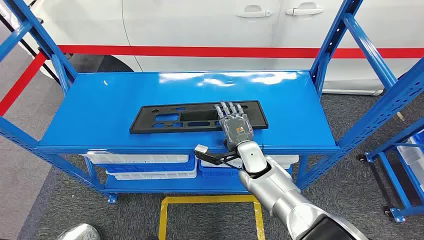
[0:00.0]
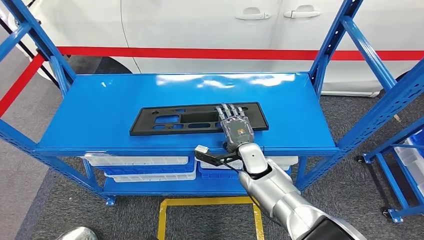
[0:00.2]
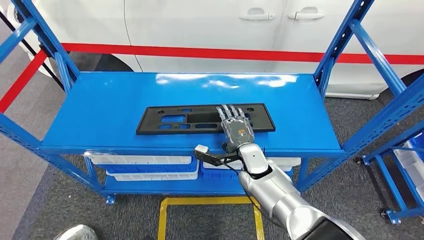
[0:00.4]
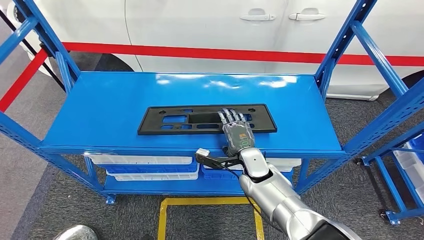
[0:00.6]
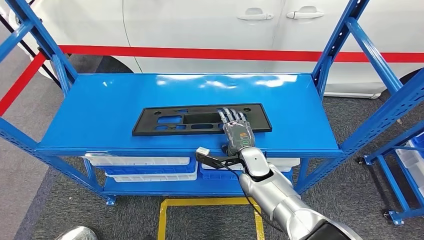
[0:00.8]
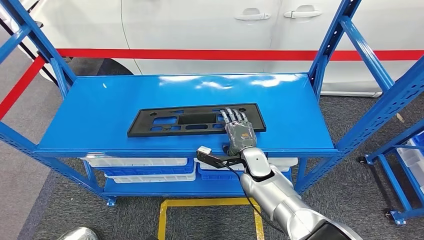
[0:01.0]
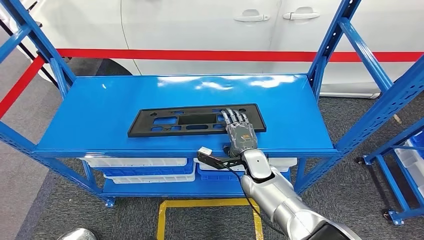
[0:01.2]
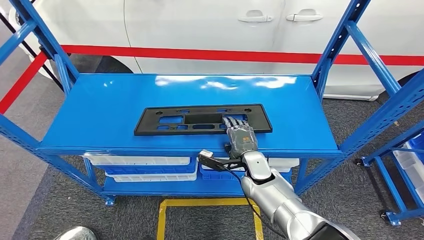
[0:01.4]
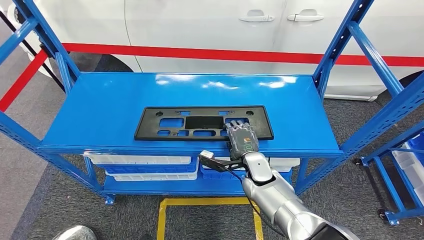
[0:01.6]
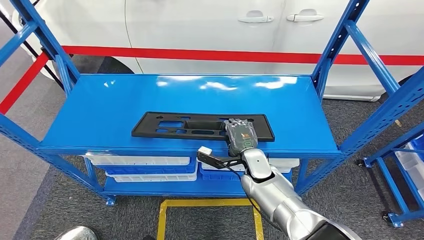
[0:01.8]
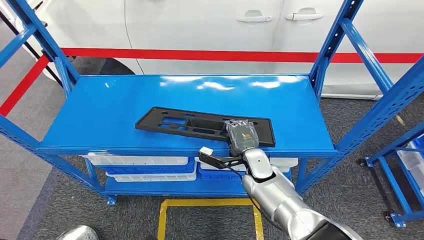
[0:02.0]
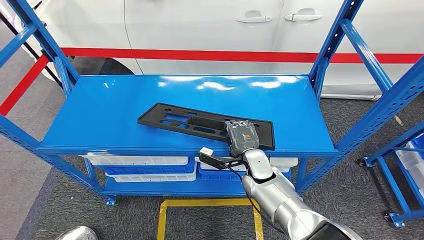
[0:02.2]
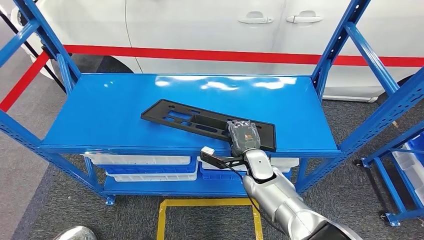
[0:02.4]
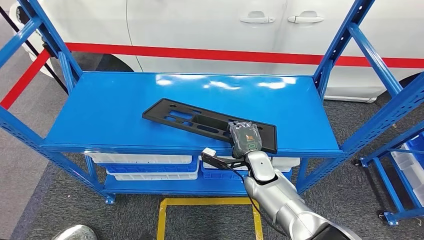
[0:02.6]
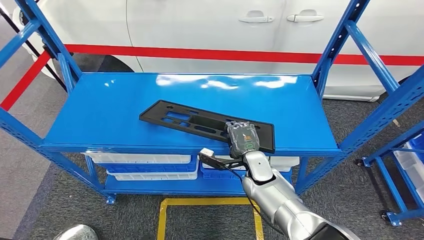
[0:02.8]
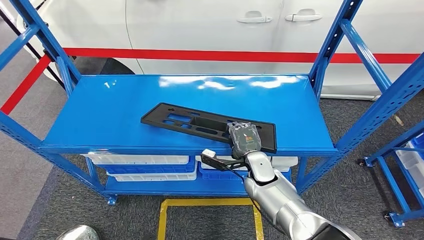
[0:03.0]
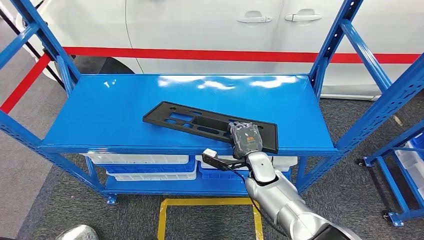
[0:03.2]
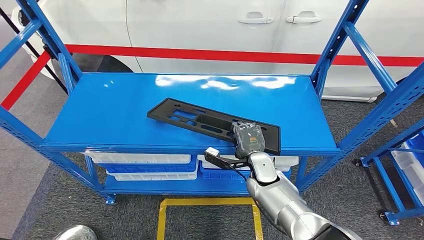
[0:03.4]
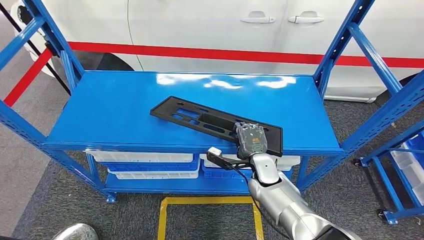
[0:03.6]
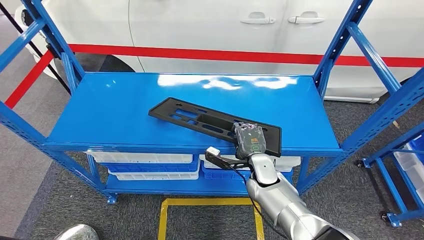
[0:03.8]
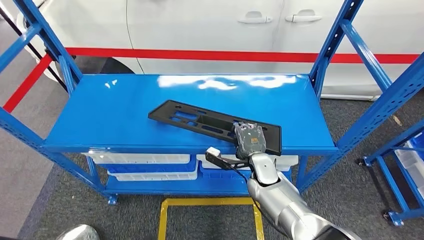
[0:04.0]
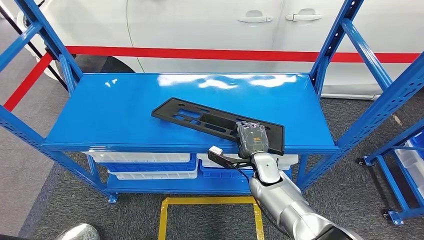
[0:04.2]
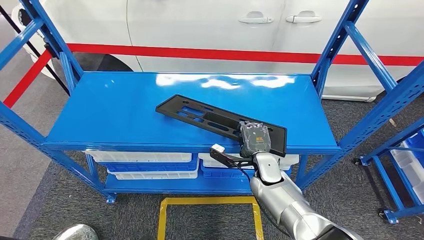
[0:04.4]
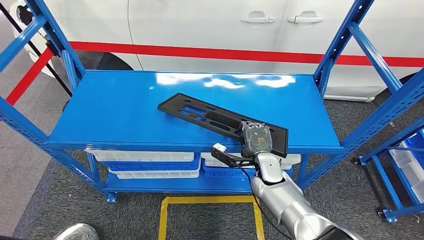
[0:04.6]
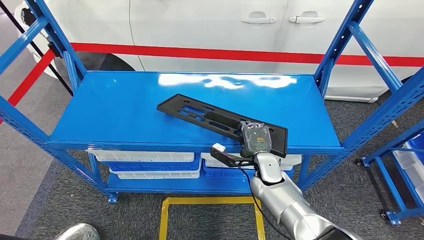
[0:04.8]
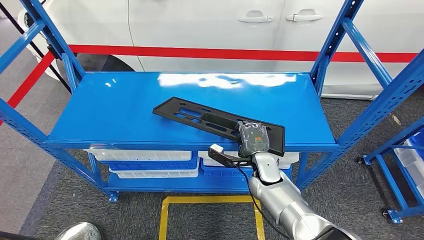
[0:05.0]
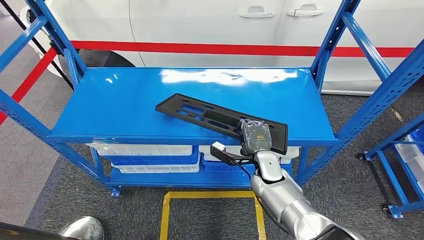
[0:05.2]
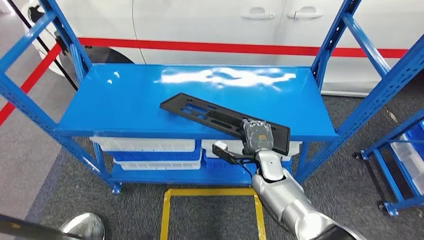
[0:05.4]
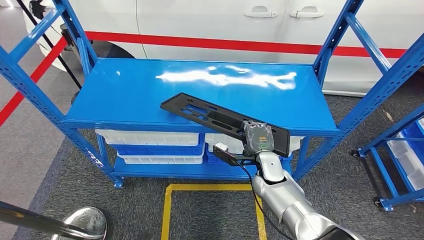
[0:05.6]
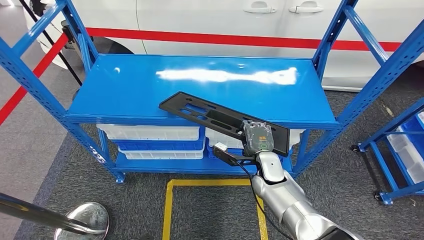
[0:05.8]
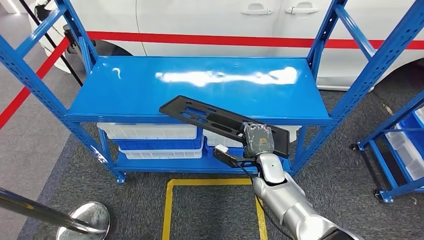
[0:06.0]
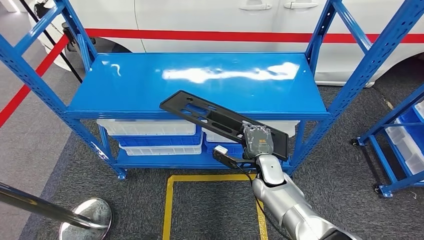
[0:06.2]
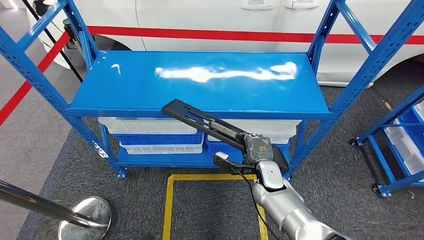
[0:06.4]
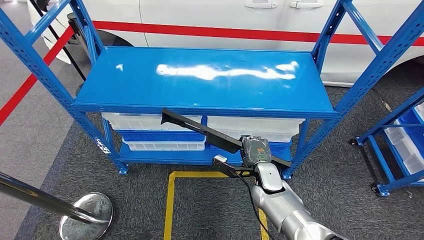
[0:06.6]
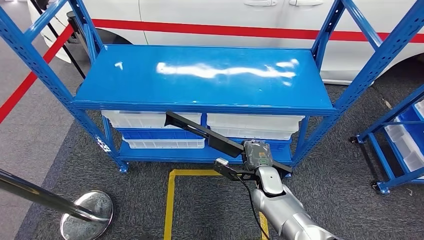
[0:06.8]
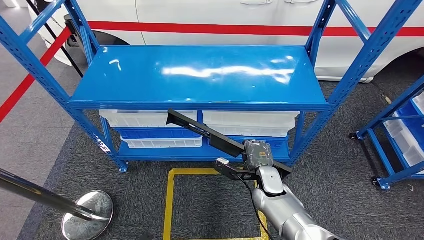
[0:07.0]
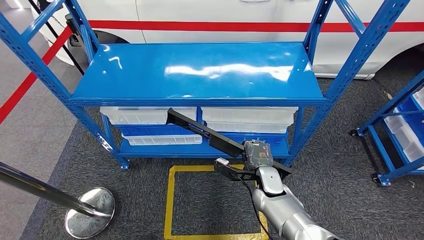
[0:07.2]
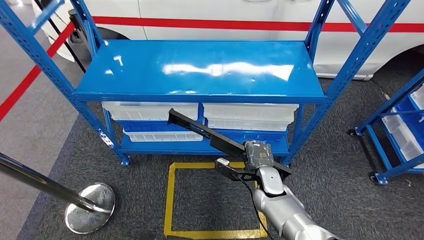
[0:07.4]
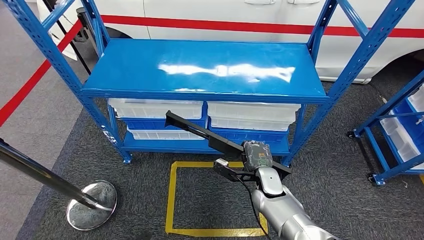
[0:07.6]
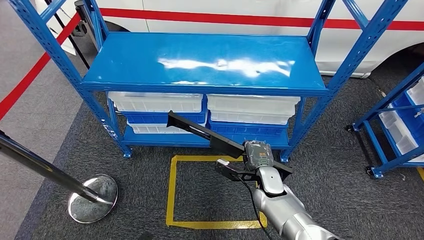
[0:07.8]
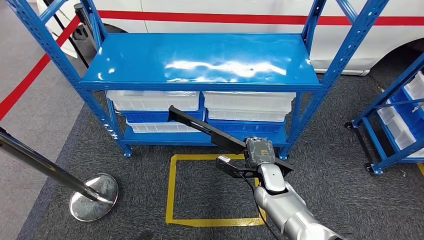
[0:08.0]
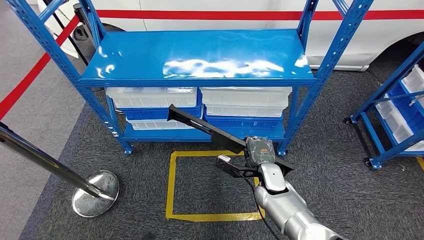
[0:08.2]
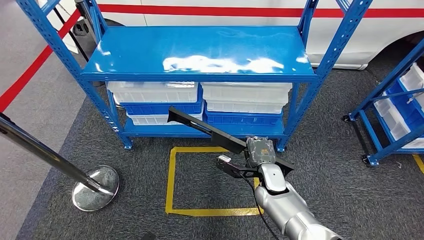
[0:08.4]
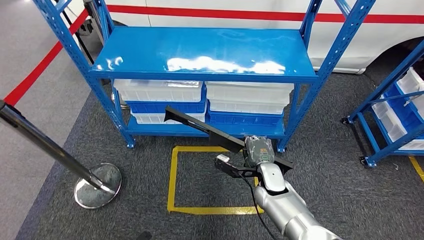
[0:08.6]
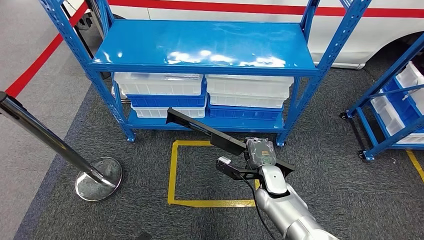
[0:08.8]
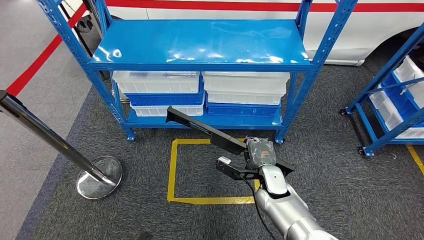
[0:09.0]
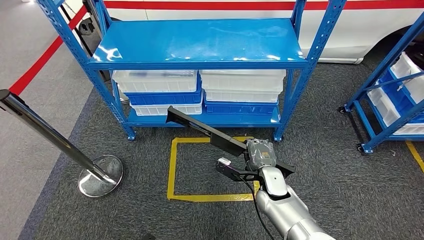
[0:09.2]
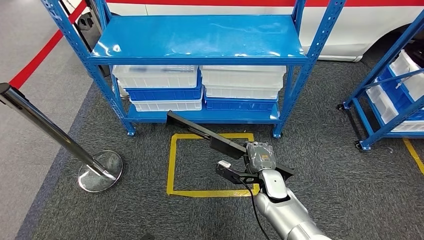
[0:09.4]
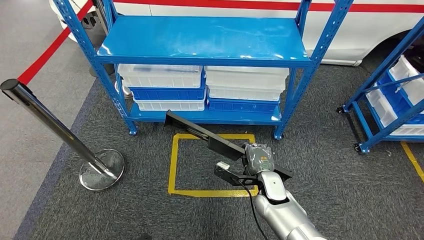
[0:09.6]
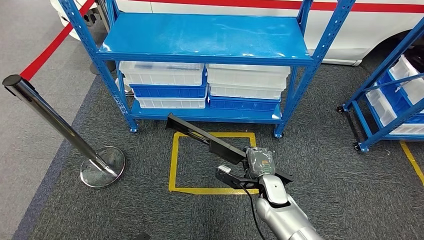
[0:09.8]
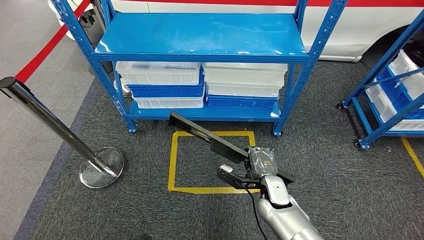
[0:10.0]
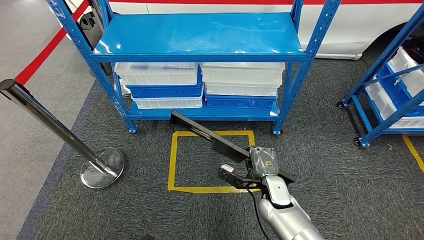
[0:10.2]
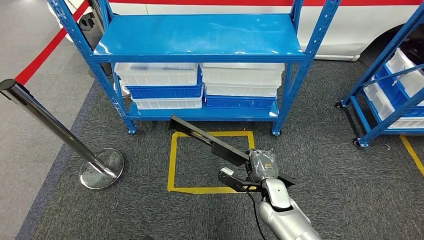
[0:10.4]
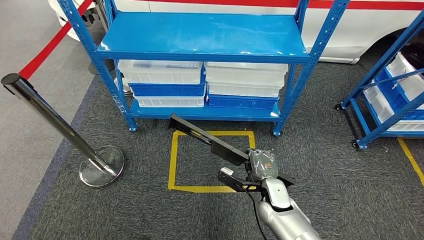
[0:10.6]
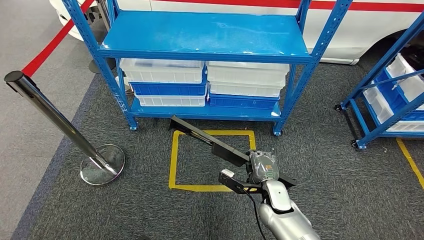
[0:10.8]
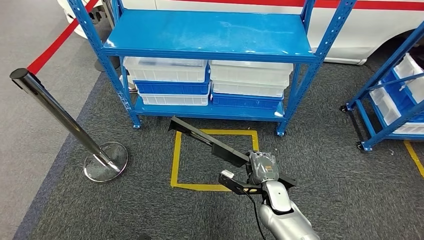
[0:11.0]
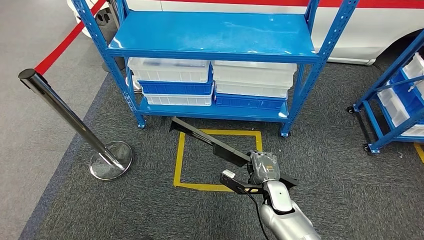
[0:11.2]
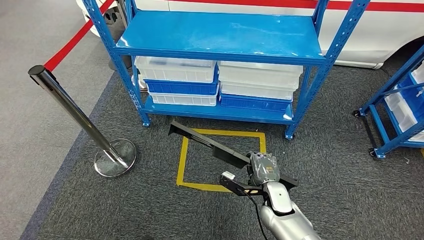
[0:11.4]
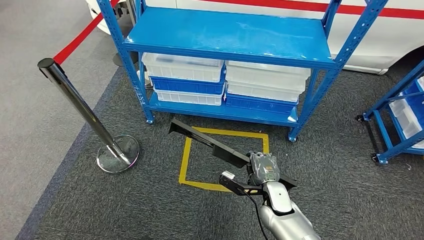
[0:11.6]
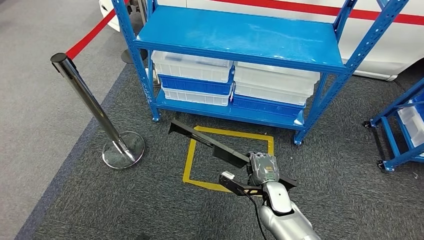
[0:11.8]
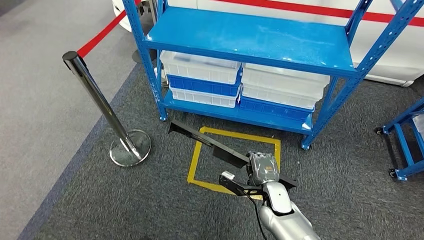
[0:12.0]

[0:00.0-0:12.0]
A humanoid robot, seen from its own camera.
Step, 0:00.0 to 0:06.8: Pick up the large material from the shelf.

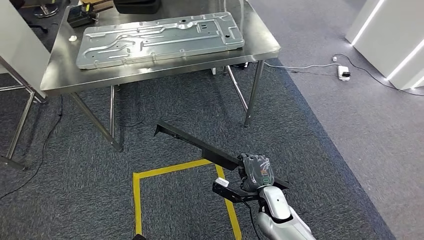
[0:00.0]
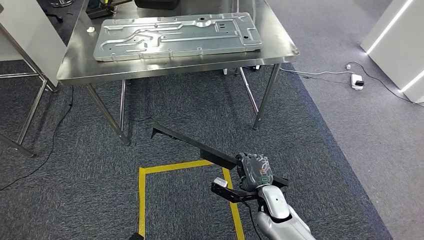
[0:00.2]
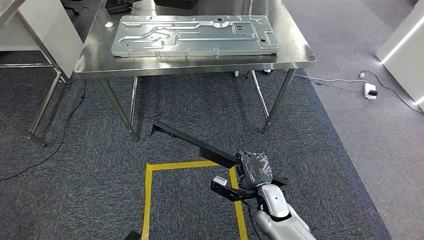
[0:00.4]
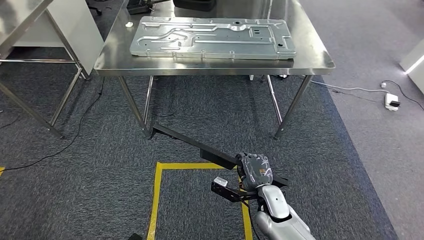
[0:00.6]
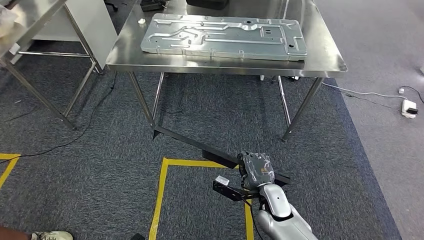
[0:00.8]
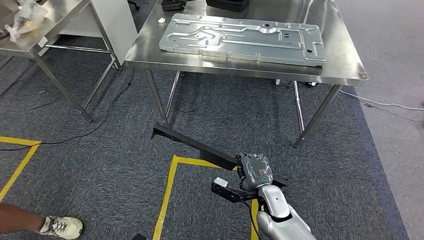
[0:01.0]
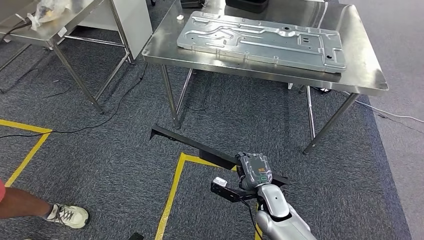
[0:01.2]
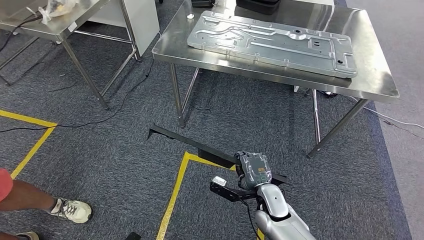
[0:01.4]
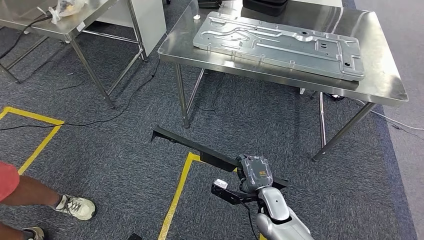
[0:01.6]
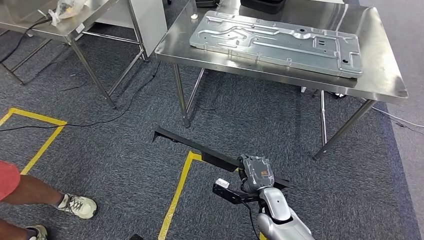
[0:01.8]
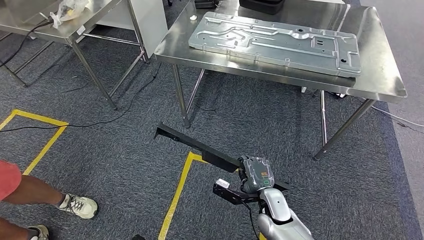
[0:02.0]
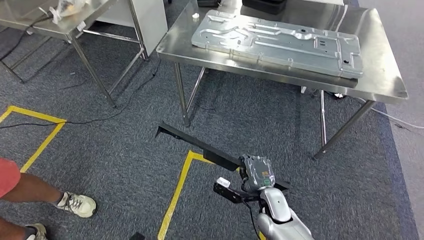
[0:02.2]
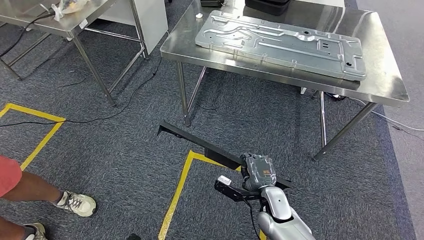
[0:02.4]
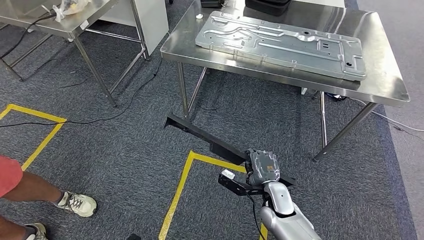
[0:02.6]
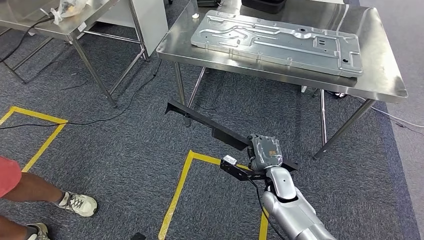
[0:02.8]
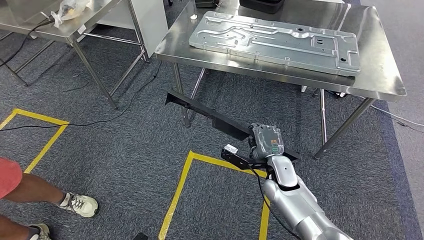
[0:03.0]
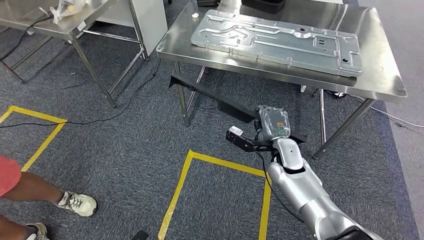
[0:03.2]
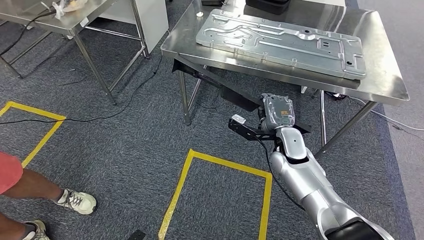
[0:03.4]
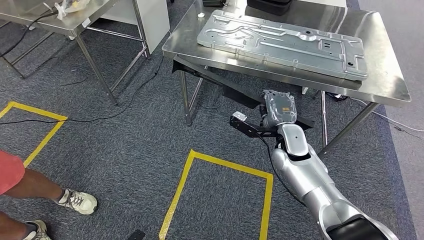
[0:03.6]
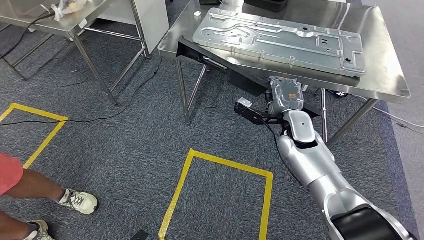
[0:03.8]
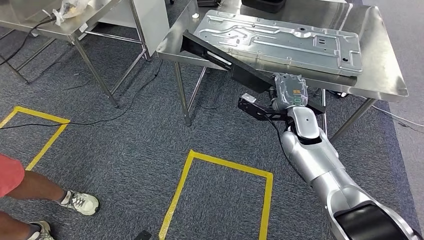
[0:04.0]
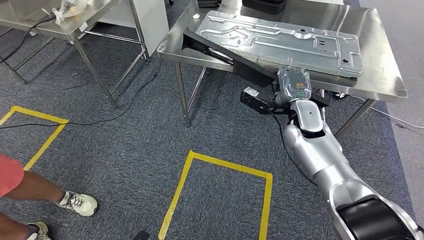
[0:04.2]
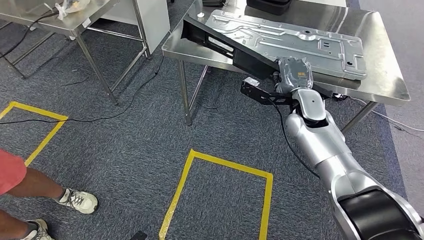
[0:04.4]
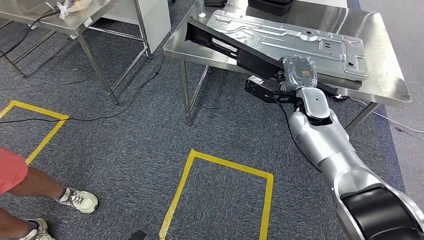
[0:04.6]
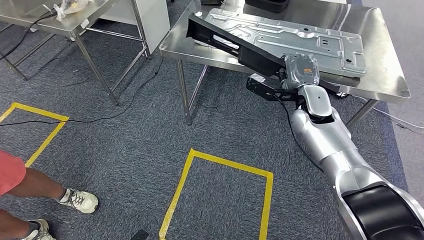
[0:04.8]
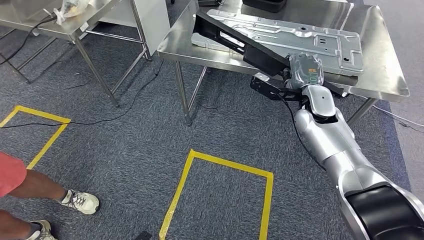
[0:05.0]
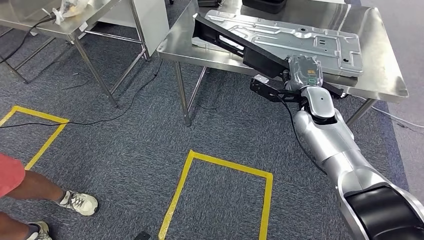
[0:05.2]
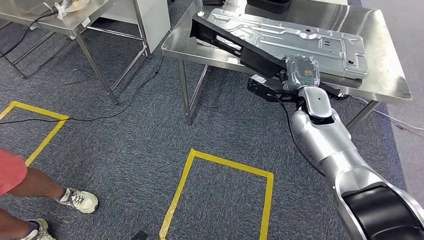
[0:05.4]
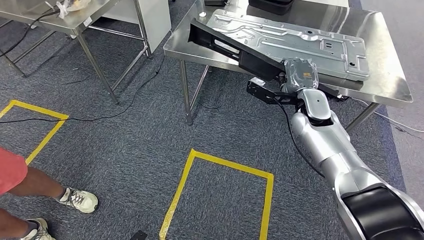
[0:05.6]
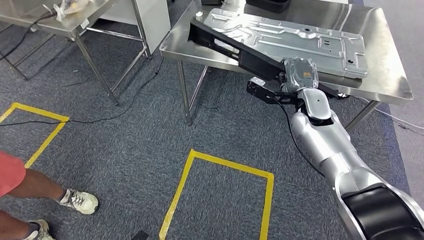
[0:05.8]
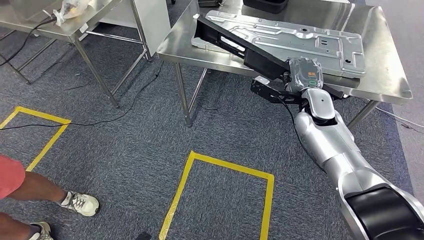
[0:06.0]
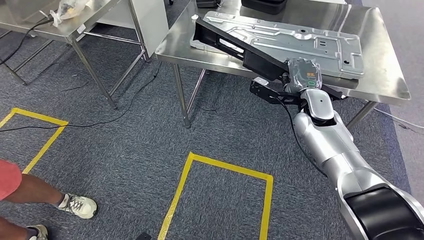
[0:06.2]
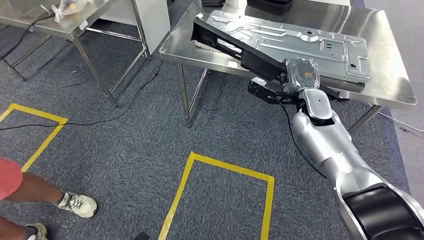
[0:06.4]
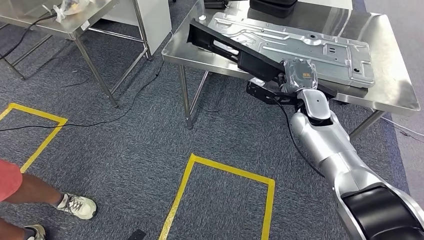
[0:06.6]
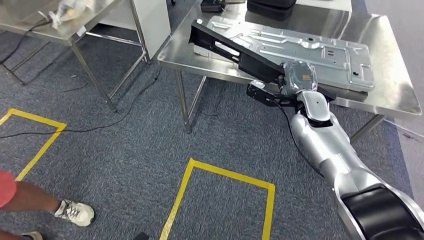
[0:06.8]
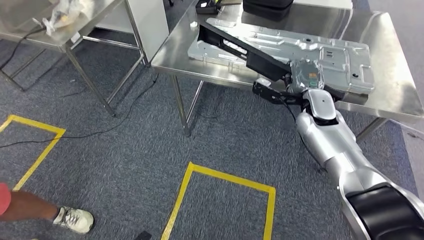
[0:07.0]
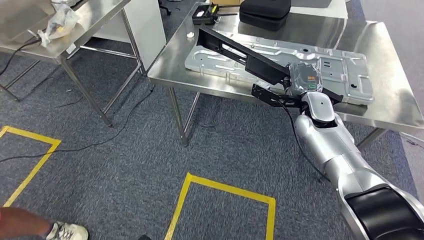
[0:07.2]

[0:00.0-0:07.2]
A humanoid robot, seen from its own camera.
Step, 0:00.0 to 0:04.8: Move the large material to the front of the workbench.
0:04.4 to 0:05.8: The hands move only a little.
